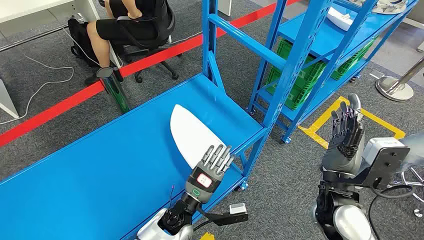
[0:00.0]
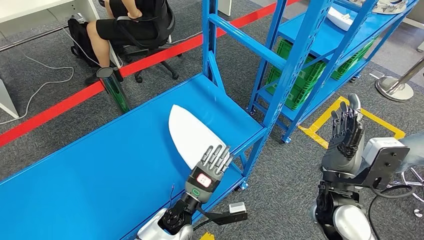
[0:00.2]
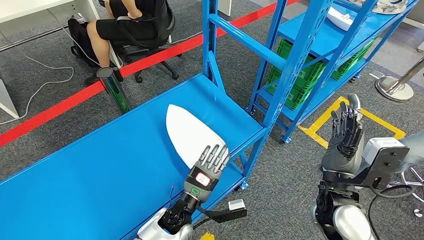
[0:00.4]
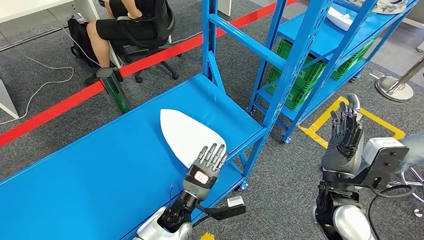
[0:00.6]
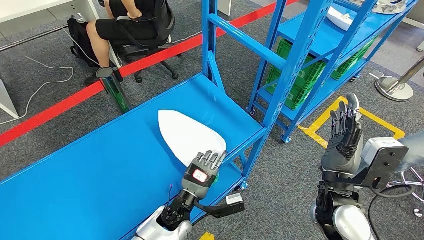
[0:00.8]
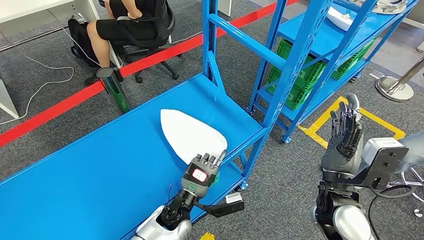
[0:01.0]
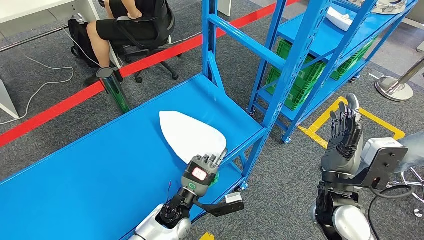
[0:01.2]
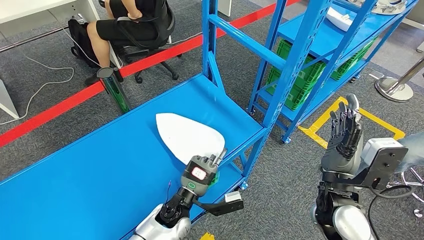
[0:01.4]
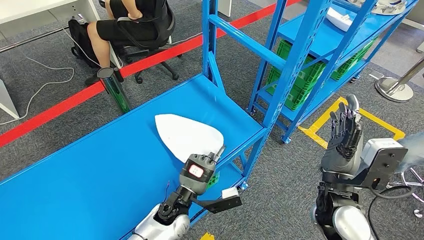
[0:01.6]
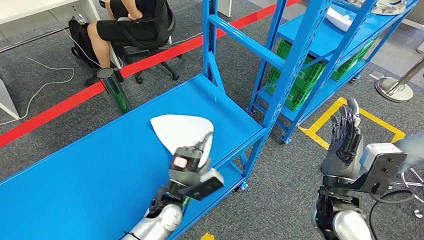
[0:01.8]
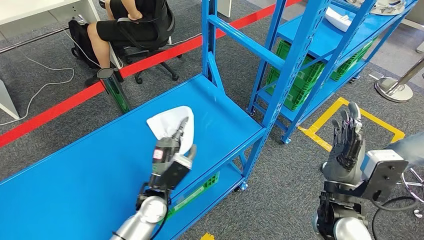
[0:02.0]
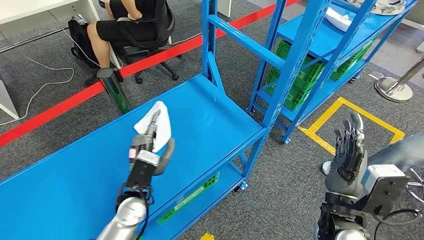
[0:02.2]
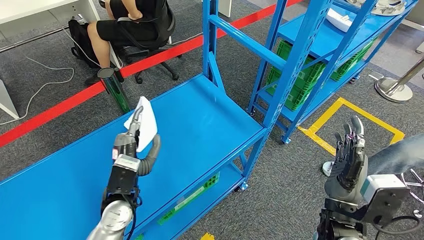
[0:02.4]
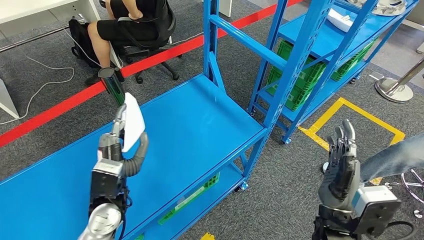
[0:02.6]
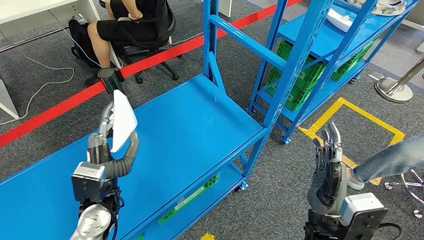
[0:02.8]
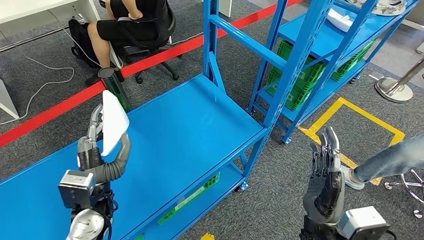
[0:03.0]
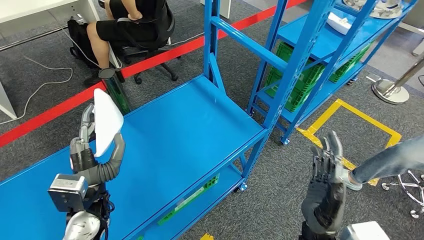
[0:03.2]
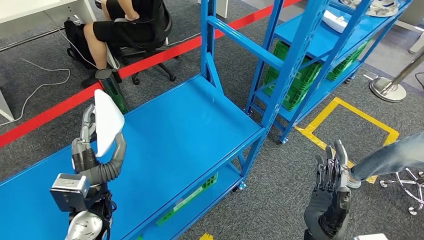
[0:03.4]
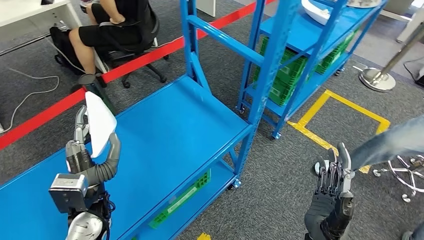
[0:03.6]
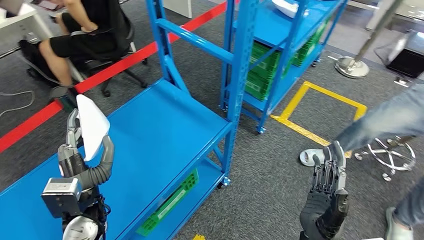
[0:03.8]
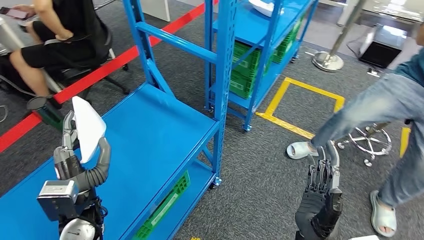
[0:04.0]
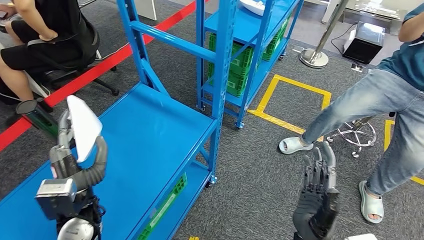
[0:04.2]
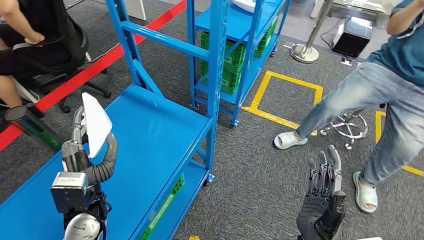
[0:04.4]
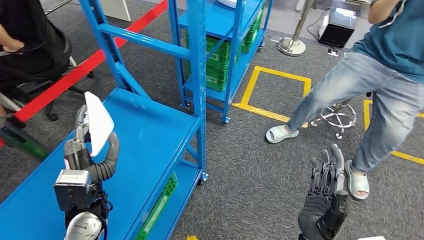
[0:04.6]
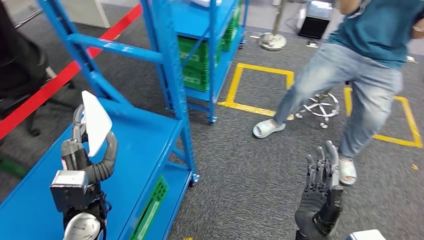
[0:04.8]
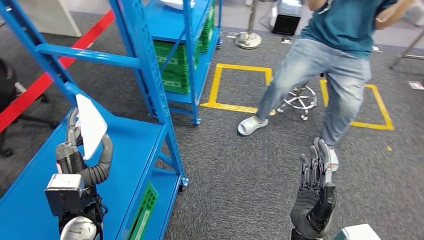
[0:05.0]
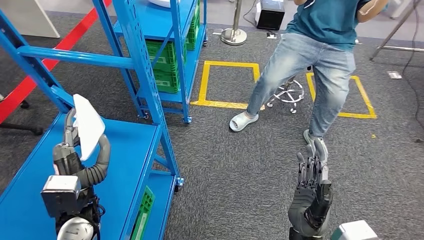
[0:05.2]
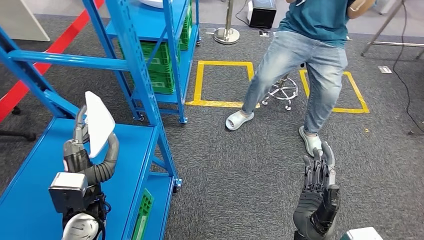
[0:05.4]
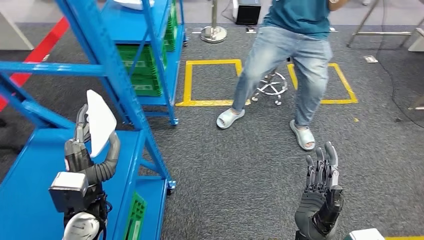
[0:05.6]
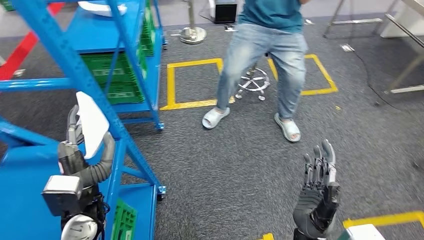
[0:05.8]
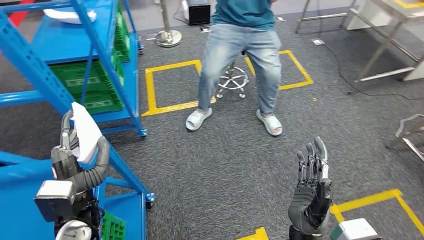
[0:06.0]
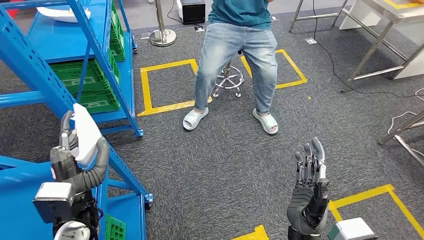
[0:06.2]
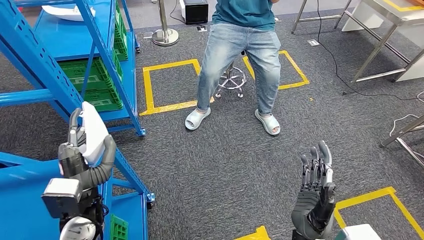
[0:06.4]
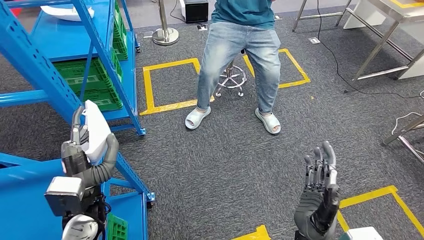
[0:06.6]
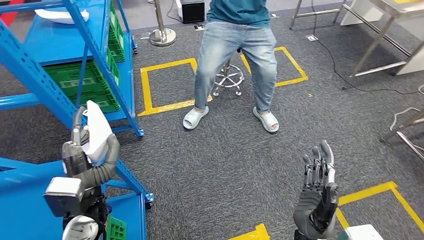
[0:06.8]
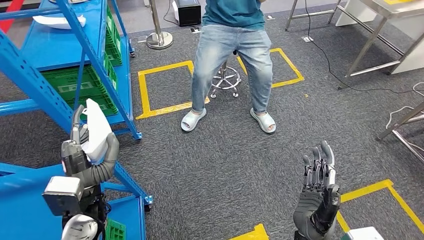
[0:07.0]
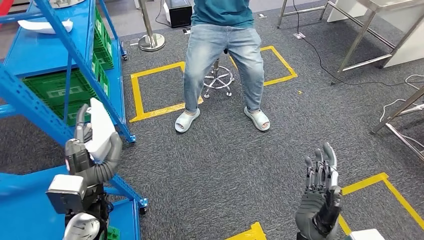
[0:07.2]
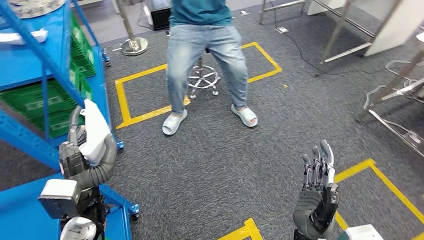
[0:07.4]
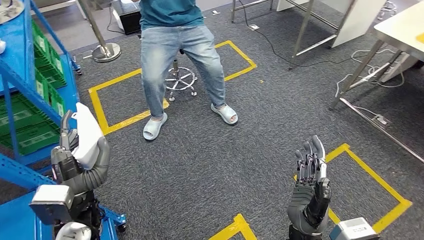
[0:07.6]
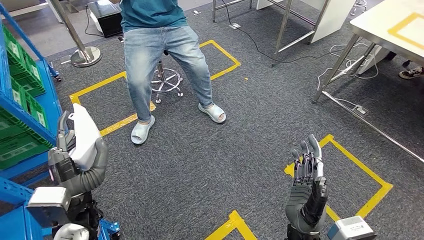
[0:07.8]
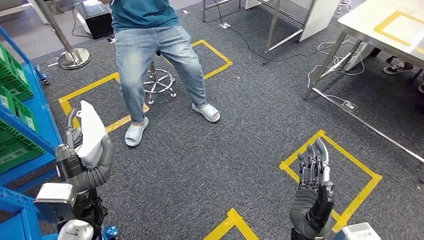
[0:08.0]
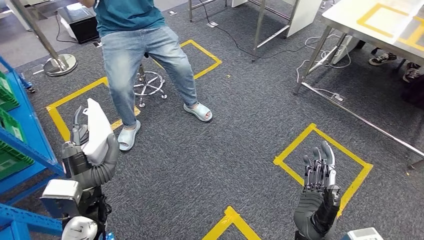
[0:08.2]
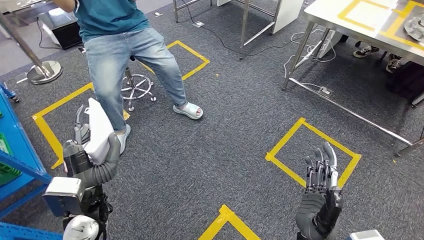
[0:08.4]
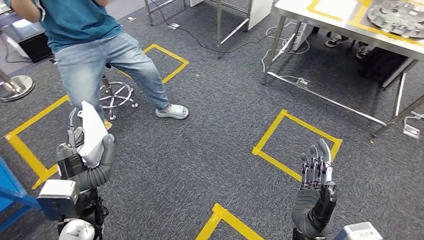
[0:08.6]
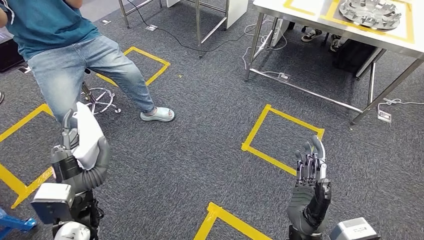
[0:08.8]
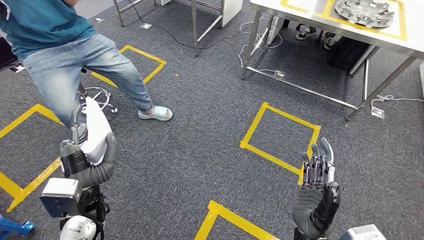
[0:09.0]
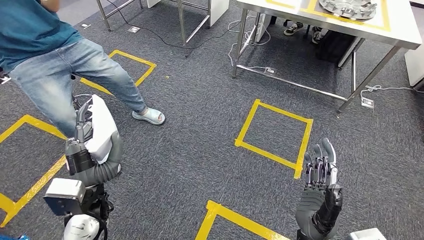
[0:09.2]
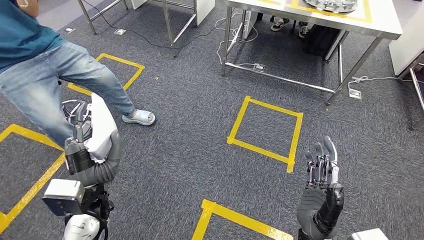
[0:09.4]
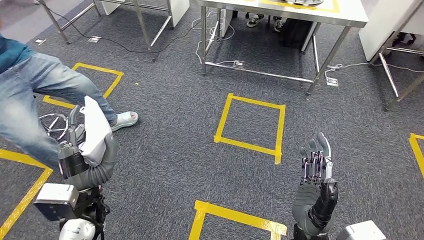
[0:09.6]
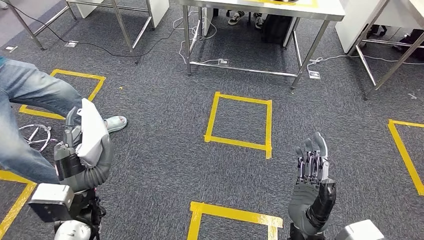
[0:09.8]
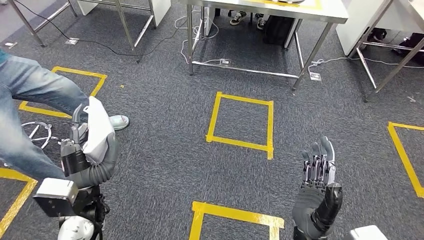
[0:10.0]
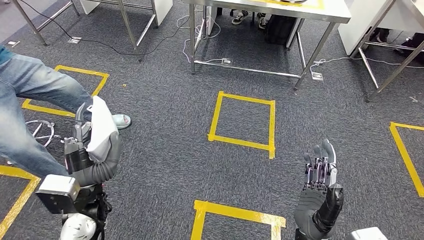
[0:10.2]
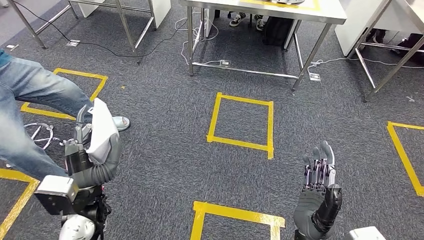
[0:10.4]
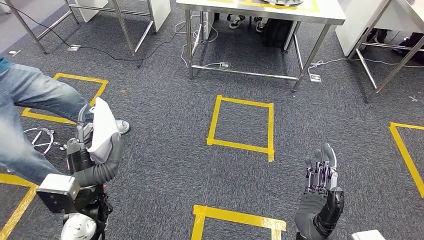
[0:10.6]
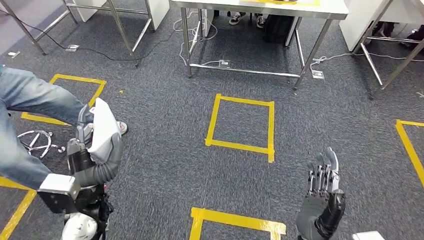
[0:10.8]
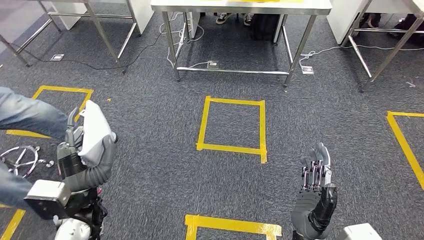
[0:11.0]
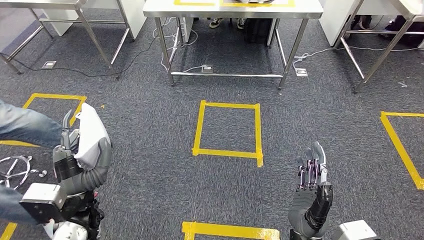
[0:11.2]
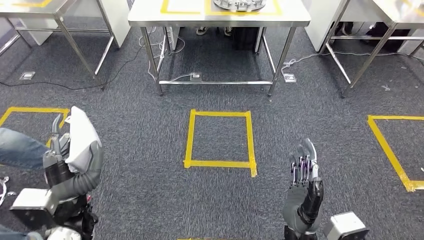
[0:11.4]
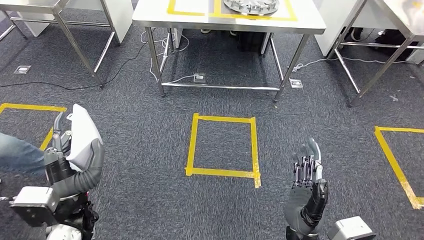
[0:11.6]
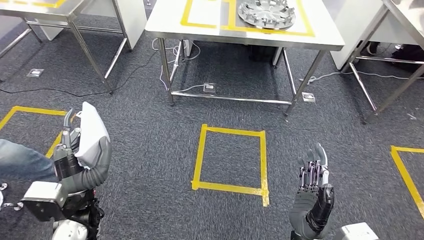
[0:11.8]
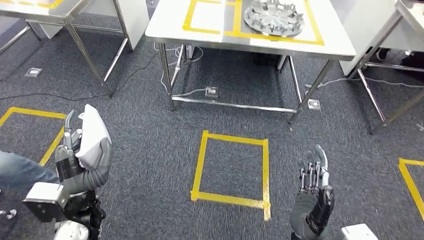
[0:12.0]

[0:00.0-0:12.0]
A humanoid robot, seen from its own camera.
Step, 0:00.0 to 0:03.2: Pick up the small component from the shelf.

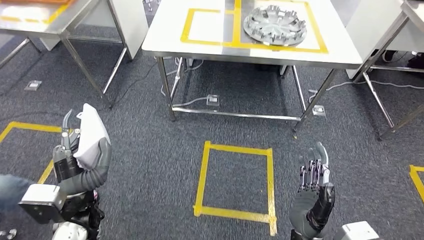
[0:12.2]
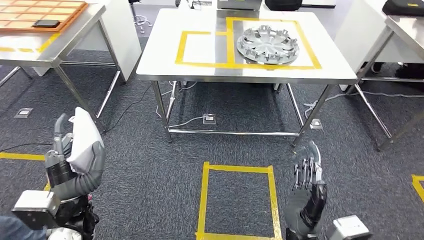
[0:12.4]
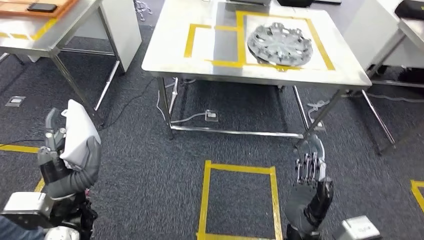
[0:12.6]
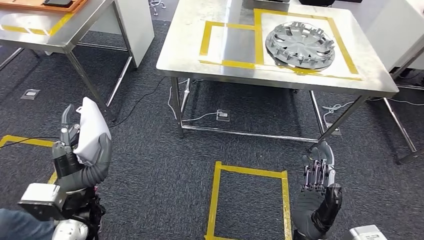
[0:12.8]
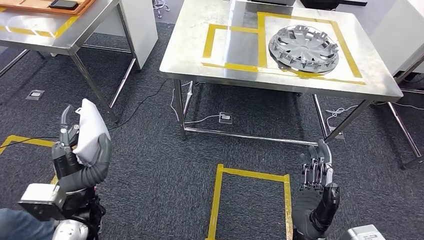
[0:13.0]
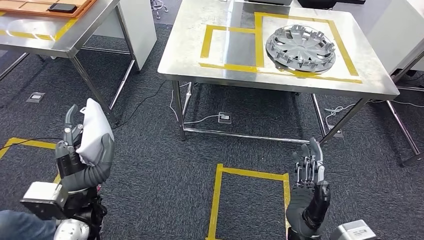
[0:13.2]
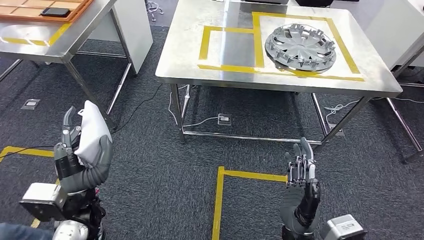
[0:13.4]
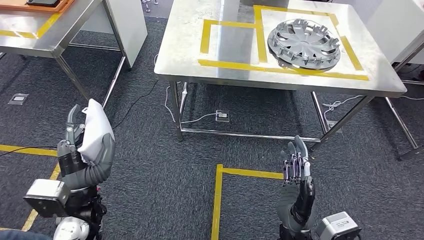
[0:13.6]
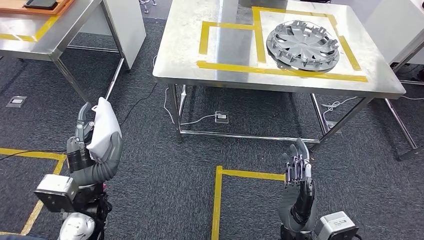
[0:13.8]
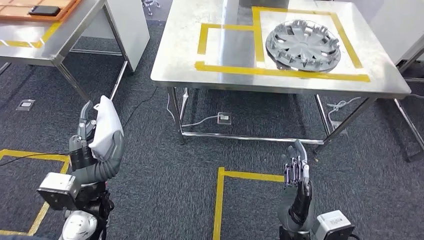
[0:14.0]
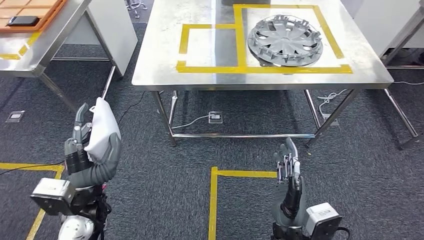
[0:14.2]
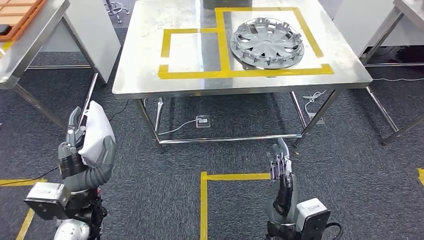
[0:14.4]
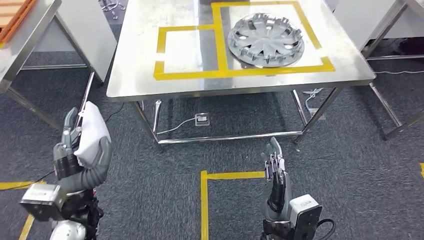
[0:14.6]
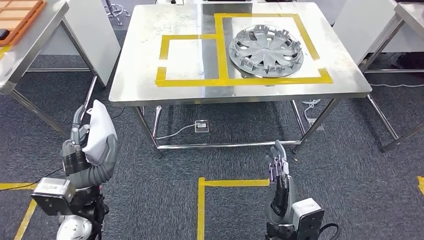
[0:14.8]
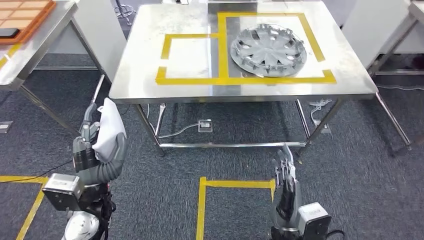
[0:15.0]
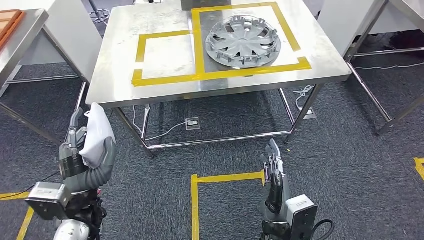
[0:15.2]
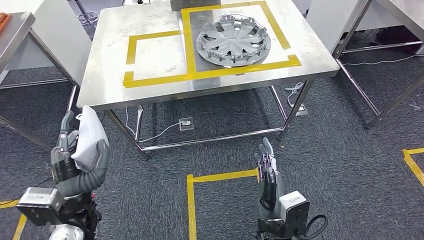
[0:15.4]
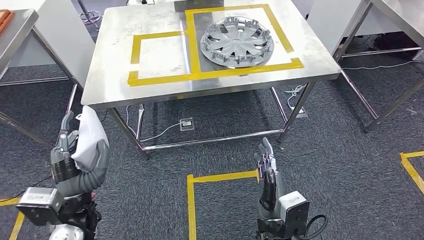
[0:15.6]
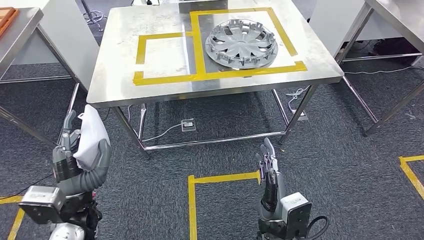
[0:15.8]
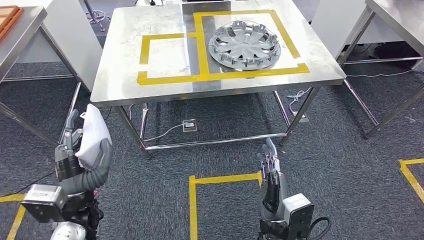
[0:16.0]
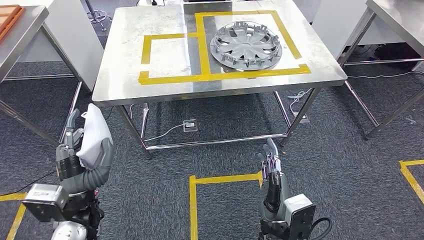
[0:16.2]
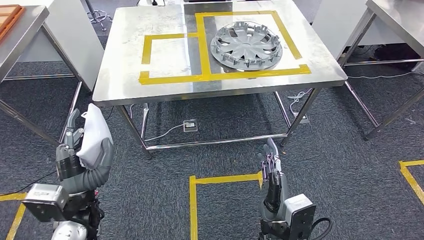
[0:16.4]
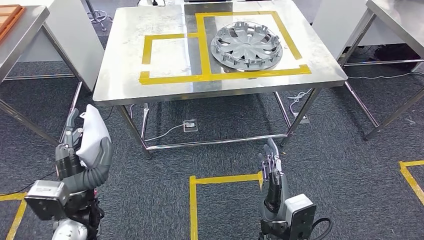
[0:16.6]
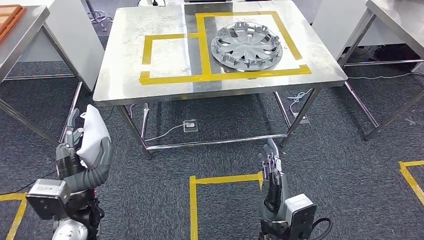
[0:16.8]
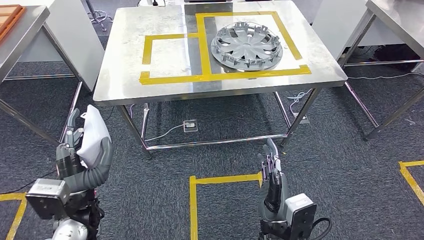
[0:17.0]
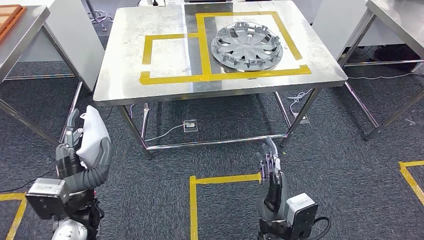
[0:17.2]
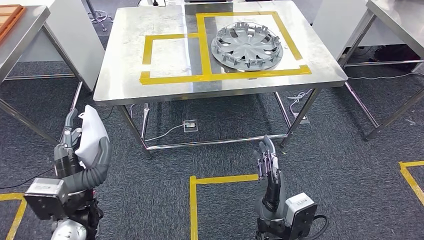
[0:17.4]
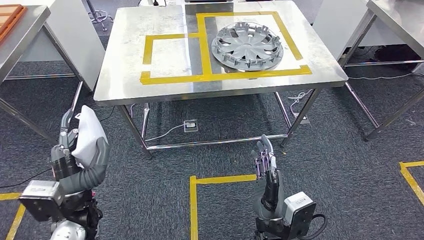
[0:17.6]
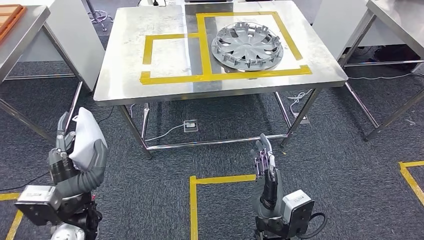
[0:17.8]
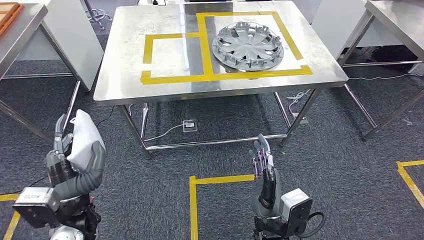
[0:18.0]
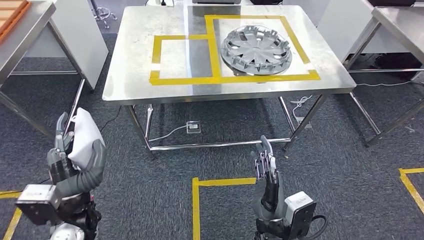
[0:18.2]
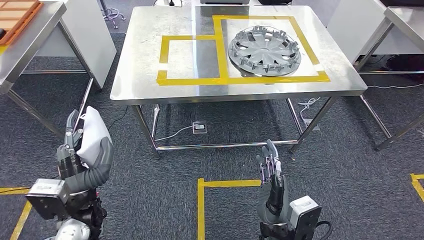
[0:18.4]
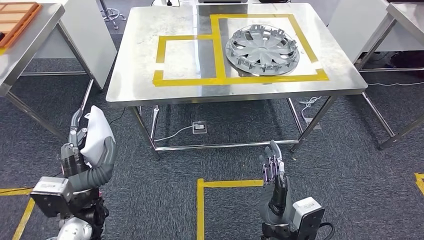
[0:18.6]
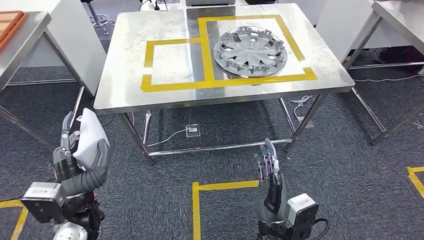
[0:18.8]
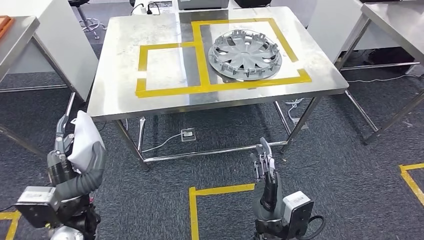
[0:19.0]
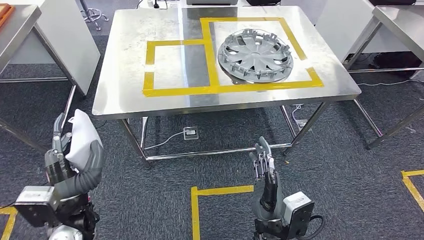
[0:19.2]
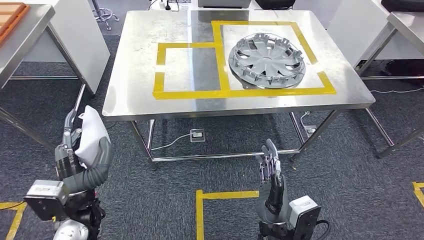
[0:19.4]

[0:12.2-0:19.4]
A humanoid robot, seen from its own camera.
0:16.6 to 0:18.0: The hands move only a little.
